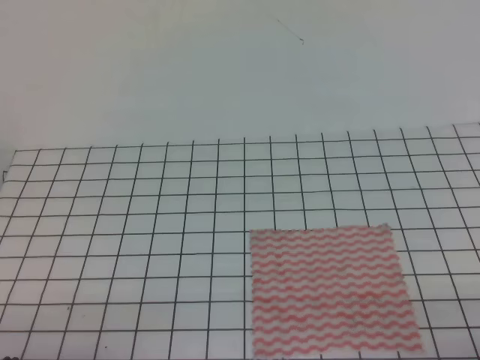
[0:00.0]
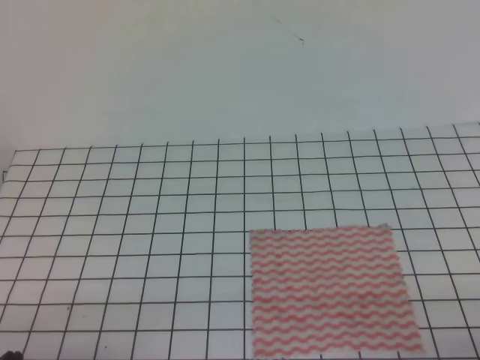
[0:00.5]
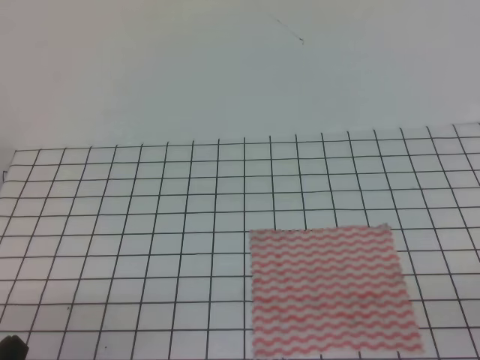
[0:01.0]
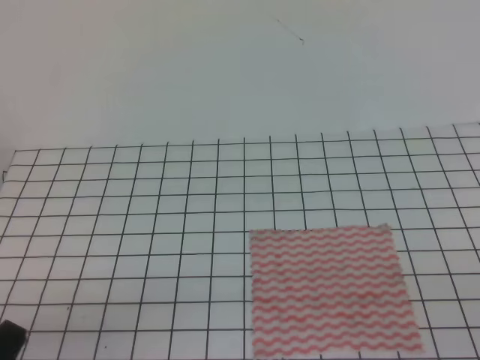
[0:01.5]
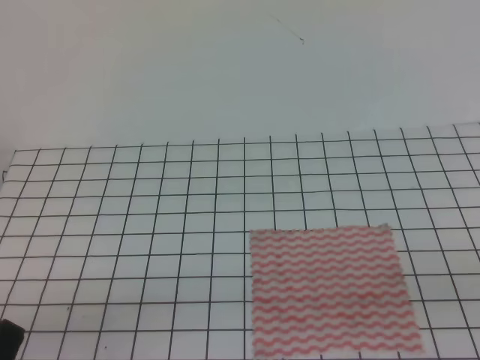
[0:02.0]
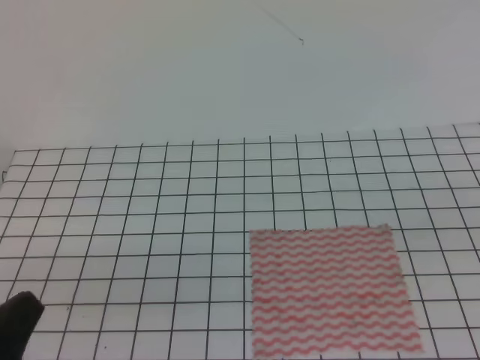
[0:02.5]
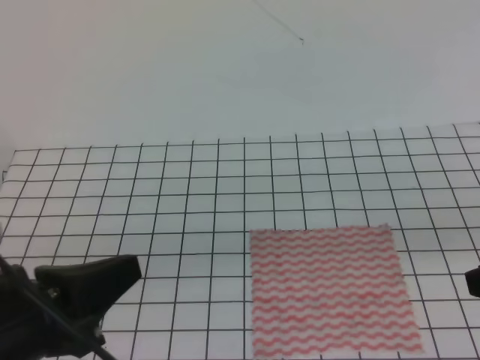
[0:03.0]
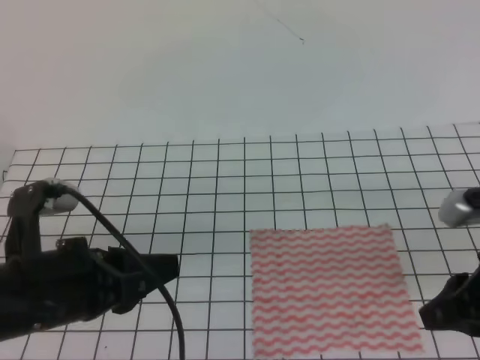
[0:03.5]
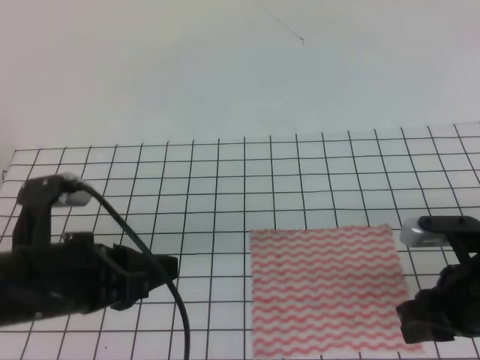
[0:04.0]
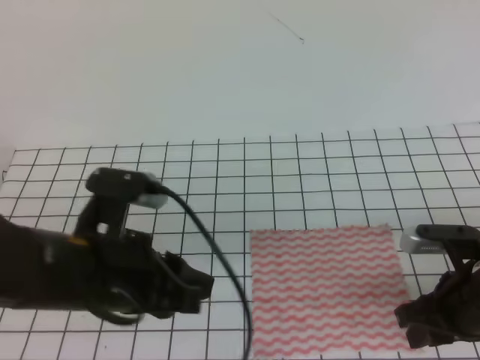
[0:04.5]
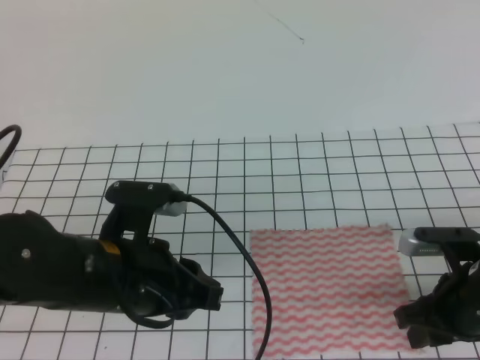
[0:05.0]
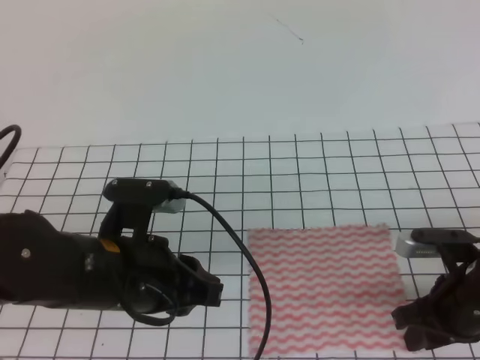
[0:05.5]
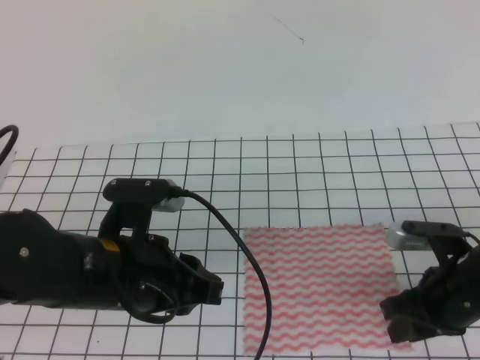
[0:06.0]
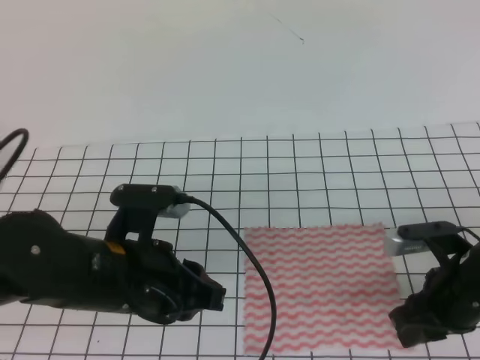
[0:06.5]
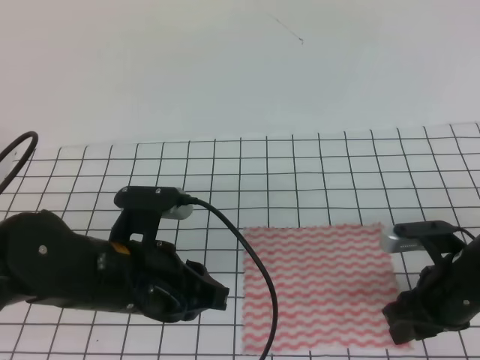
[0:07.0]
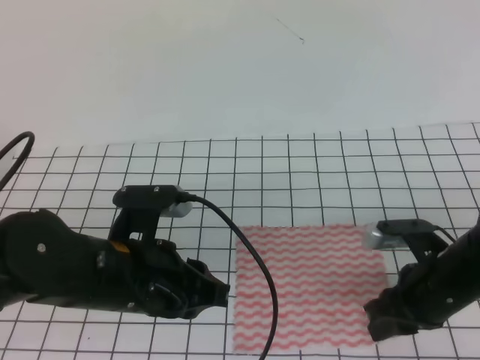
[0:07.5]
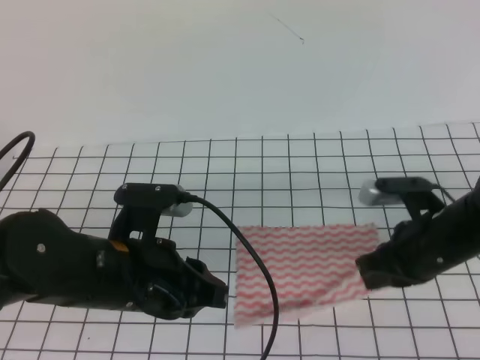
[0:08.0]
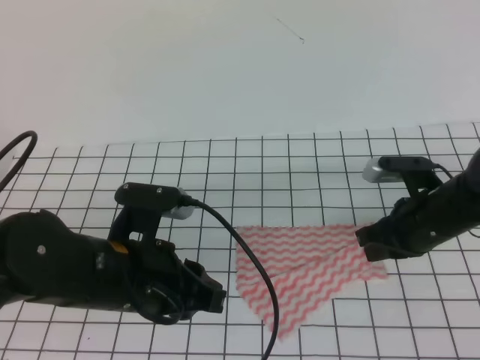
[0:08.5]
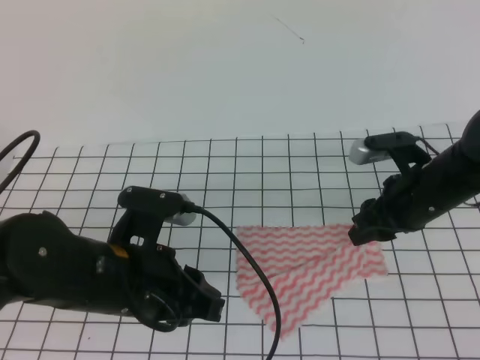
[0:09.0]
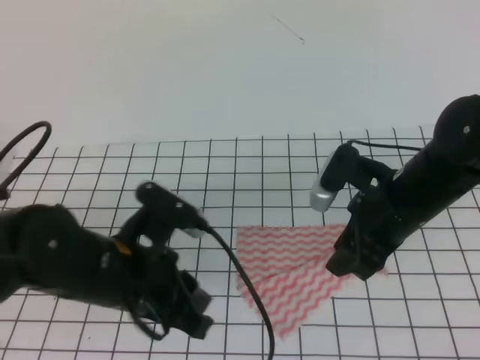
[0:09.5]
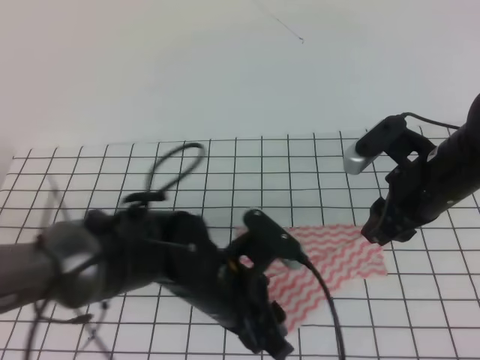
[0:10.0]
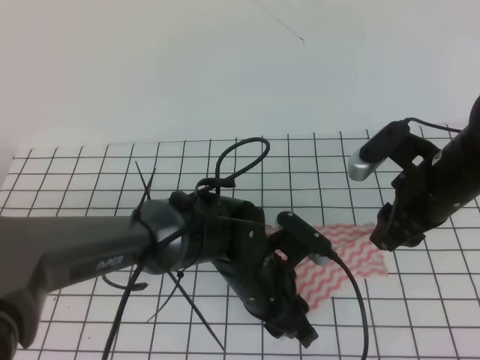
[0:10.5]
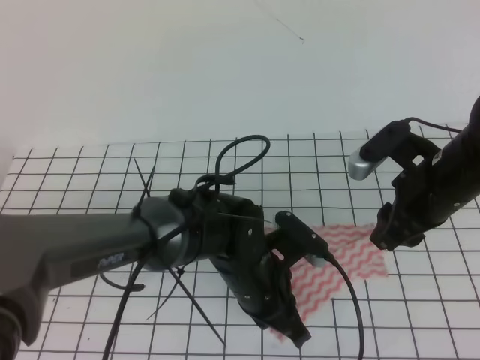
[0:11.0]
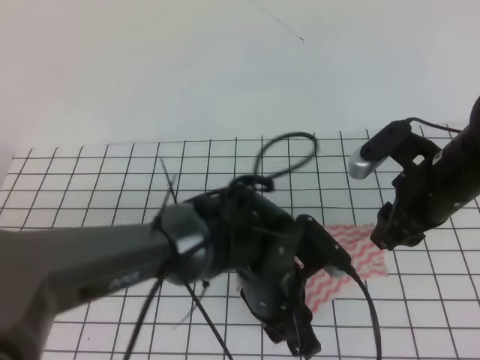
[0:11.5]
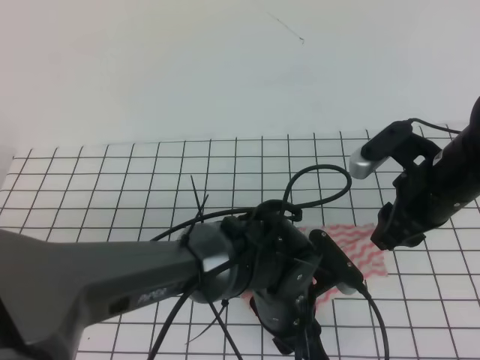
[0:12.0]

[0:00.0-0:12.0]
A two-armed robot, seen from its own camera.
Step, 0:00.0 to 0:05.5: Fold the towel upwards with the right gripper.
Step, 0:06.0 to 0:10.5: Fold the towel upwards with the left gripper.
0:02.0 to 0:04.0: The left gripper goes roughly 15 cm forward, to the right and upward, and opens; the right gripper goes approximately 20 cm forward and to the left, and opens.
0:04.0 to 0:06.0: The left gripper travels to the right by some 5 cm.
0:06.0 to 0:08.0: The right gripper closes up.
0:08.0 to 0:10.0: The left gripper is displaced to the right and downward by about 10 cm, and opens, while the right gripper goes approximately 5 cm upward, and opens up.
0:10.0 to 0:12.0: The left gripper travels to the right by approximately 5 cm, and closes and opens again.

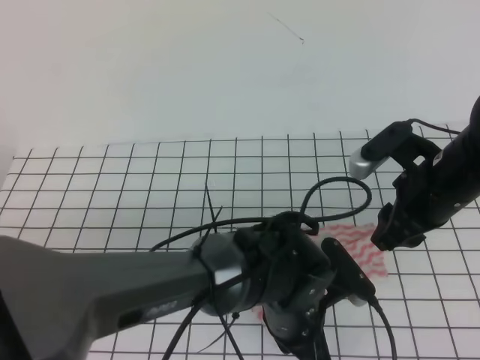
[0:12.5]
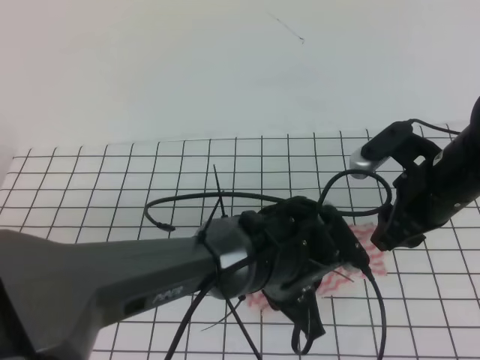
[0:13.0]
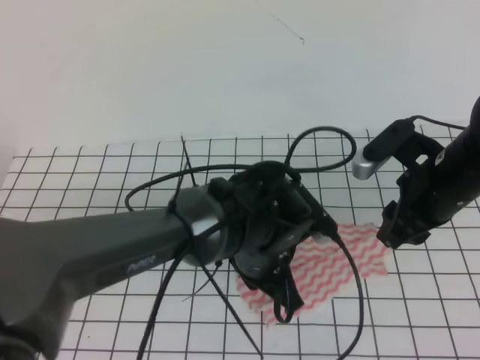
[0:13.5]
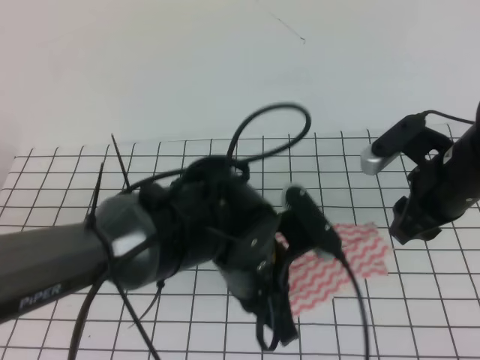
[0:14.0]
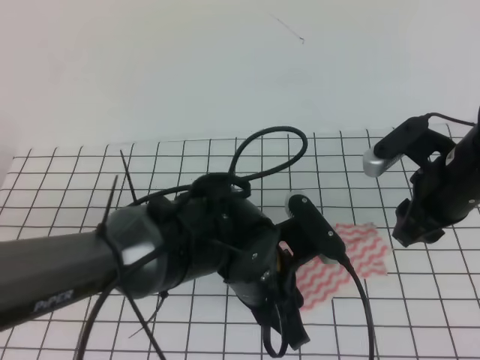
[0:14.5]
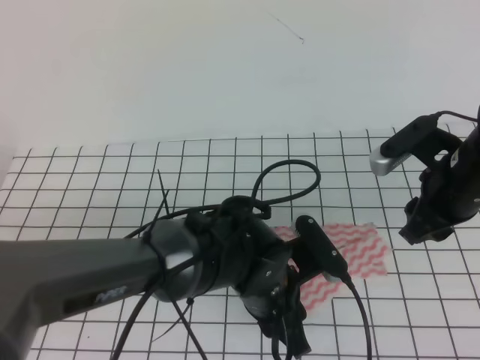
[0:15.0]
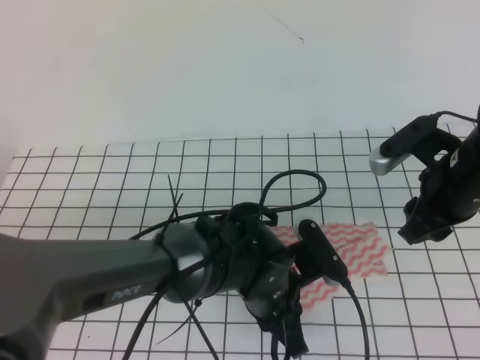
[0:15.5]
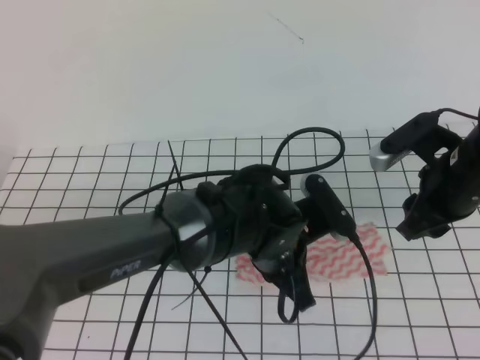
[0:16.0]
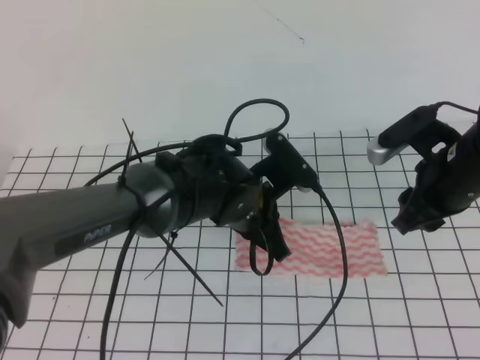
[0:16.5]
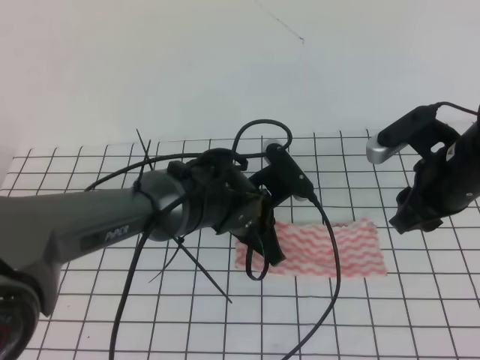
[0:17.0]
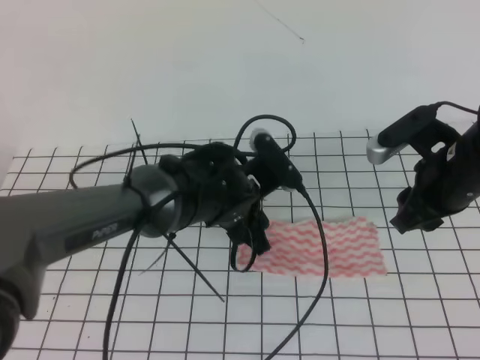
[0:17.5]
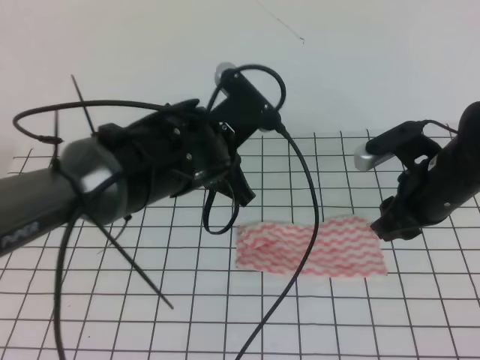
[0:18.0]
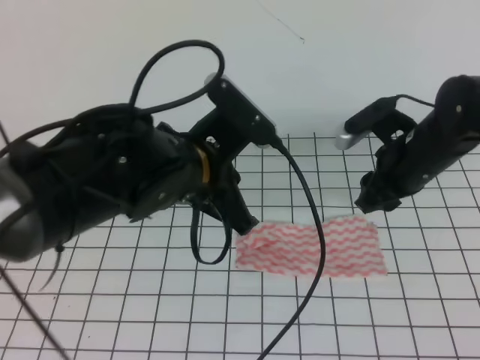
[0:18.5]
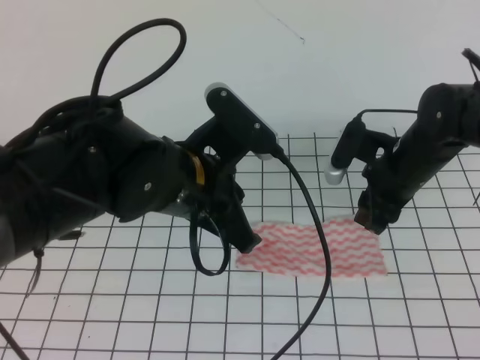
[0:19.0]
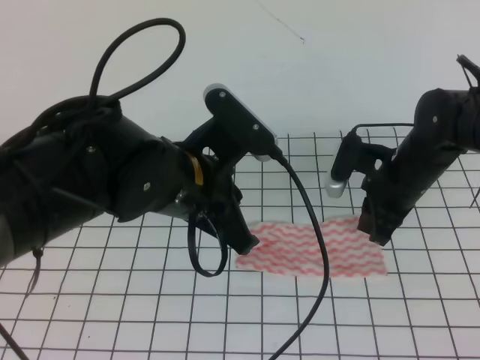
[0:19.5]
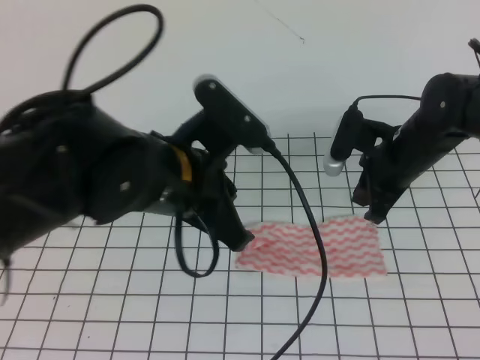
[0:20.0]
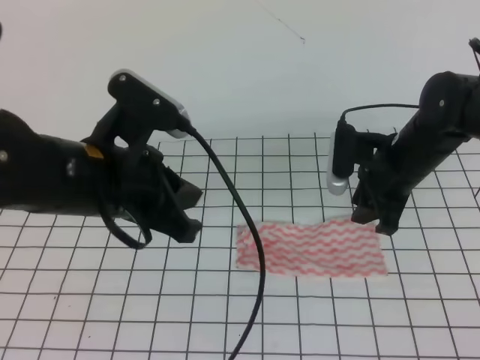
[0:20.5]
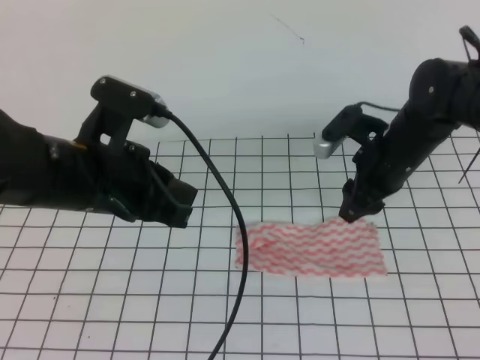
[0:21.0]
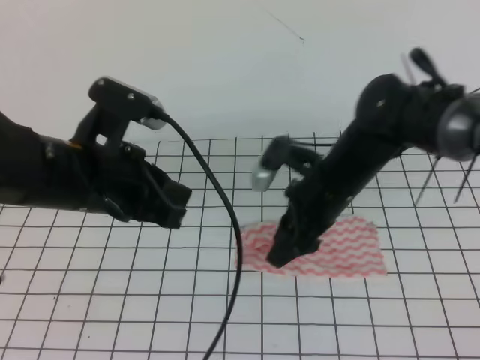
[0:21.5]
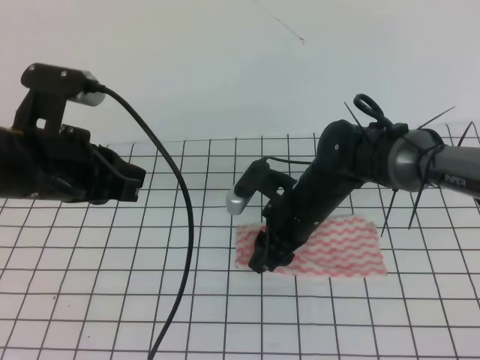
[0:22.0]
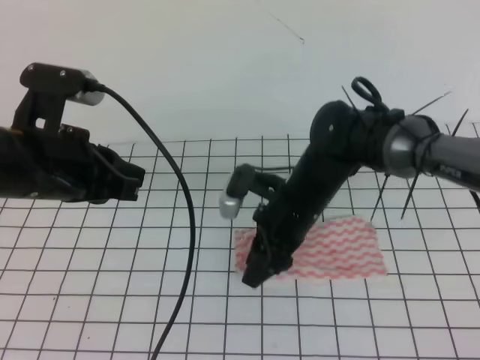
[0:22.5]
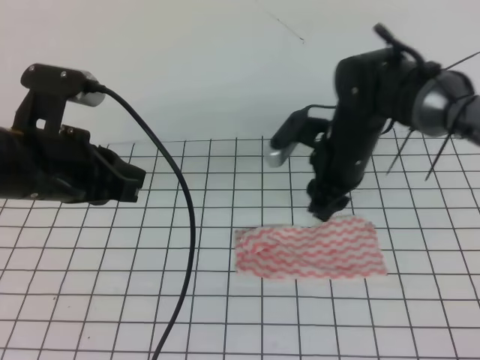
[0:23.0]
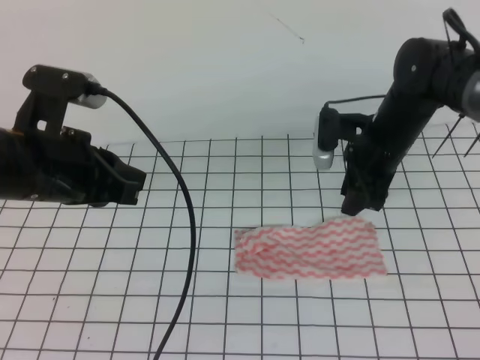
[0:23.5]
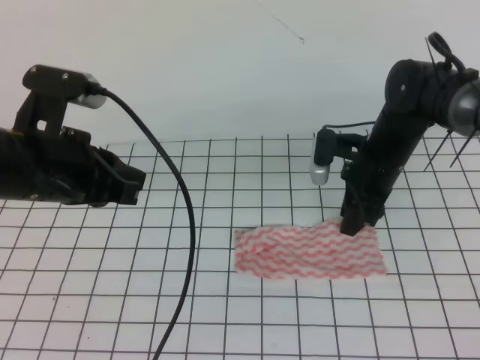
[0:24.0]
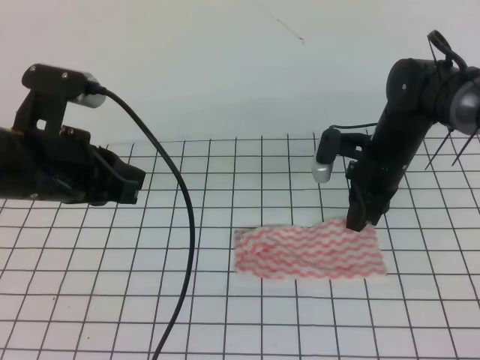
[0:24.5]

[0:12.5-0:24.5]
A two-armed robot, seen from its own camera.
Step, 0:12.5 to 0:20.0: Tidy up the towels.
Step, 0:20.5 to 0:22.0: Fold the towel from right to left with the right gripper.
0:12.5 to 0:14.5: The left gripper moves upward, approximately 5 cm, and opens.
0:14.5 to 0:16.5: The left gripper shifts approximately 10 cm forward, and closes its fingers.
0:16.5 to 0:18.5: The left gripper travels upward and to the left by approximately 10 cm, and opens, then closes once more. Meanwhile the right gripper ends up approximately 5 cm from where it was.
0:18.5 to 0:20.5: The right gripper closes and opens again. Meanwhile the left gripper goes roughly 5 cm to the left.
0:20.5 to 0:22.5: The left gripper goes about 5 cm to the left. The right gripper shifts approximately 10 cm to the left.
0:22.5 to 0:24.5: The right gripper travels to the right and forward by some 15 cm, and closes its fingers.

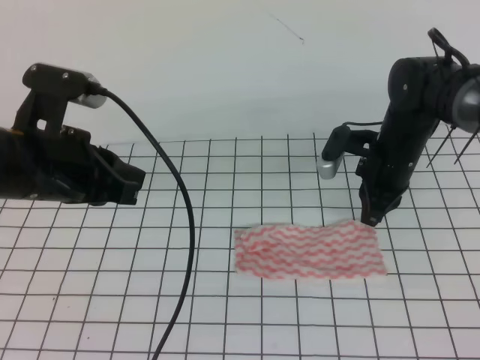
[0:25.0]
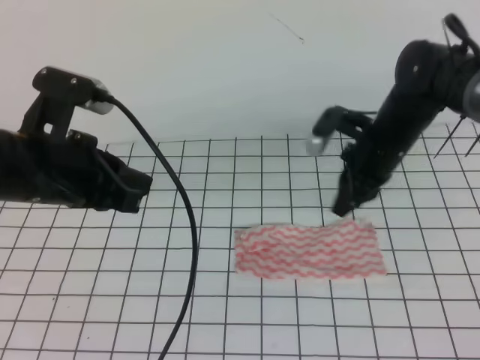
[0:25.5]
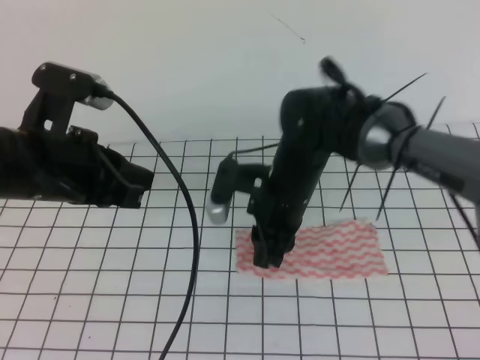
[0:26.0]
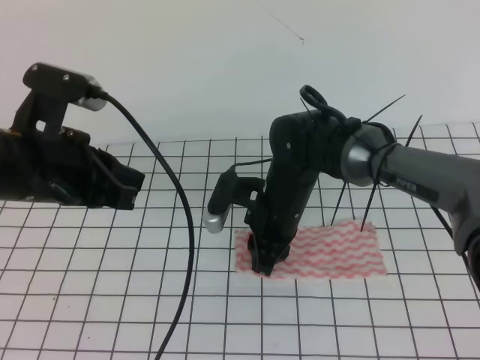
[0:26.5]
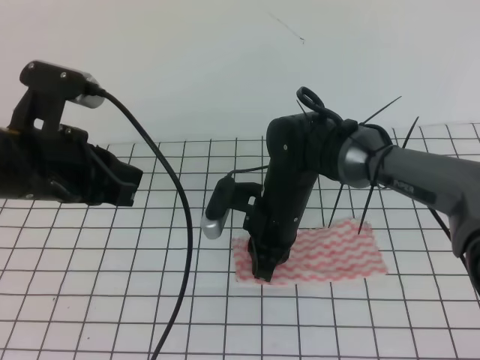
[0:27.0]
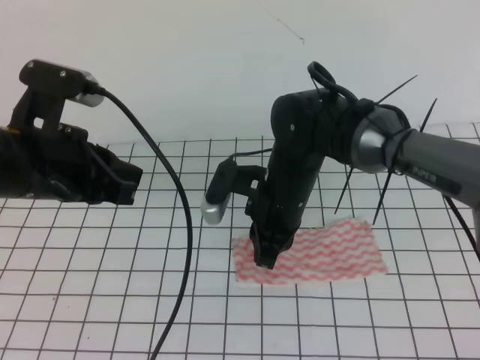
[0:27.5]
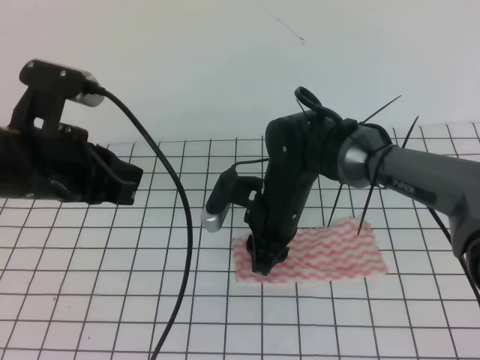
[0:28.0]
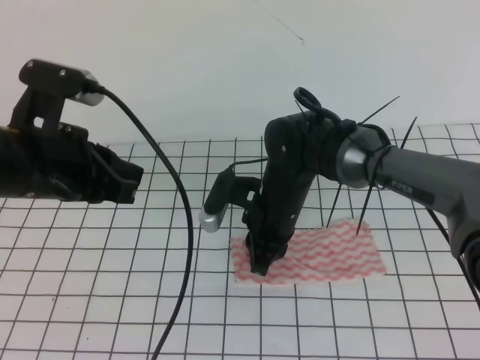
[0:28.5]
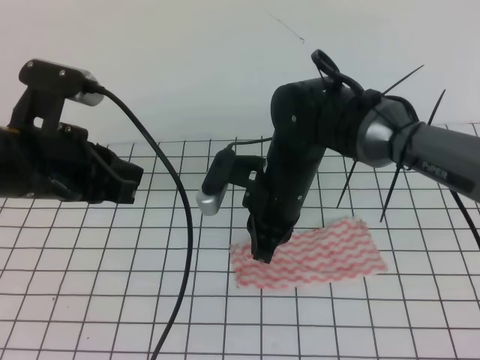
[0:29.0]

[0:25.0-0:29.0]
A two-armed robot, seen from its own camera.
0:25.0 to 0:27.0: The right gripper goes about 15 cm to the left and backward, and opens, then closes once more.
0:27.0 to 0:29.0: The right gripper opens and closes again.
